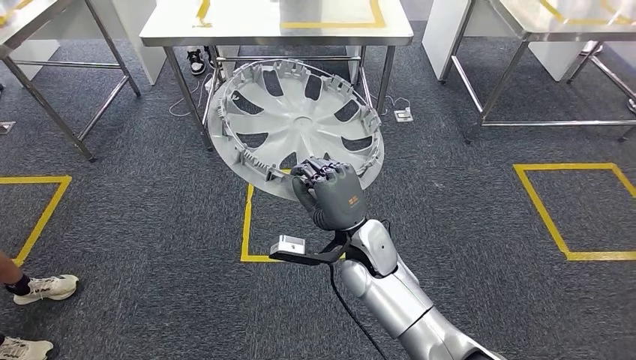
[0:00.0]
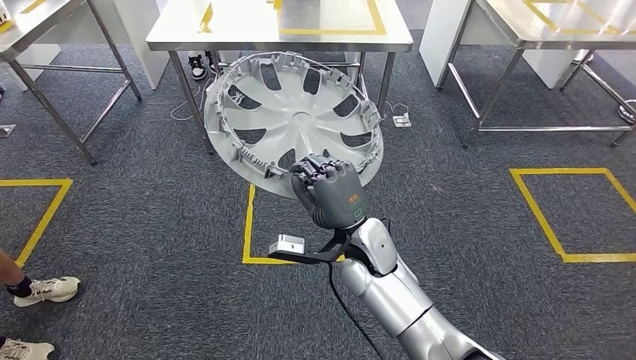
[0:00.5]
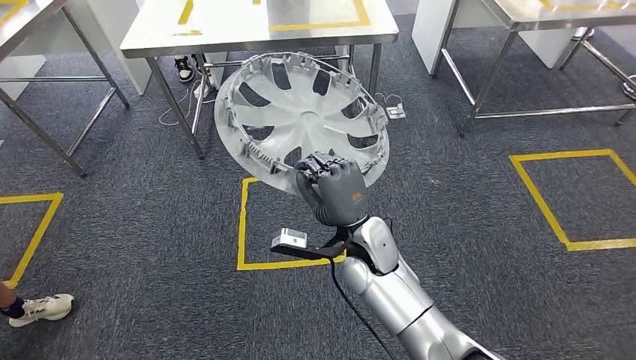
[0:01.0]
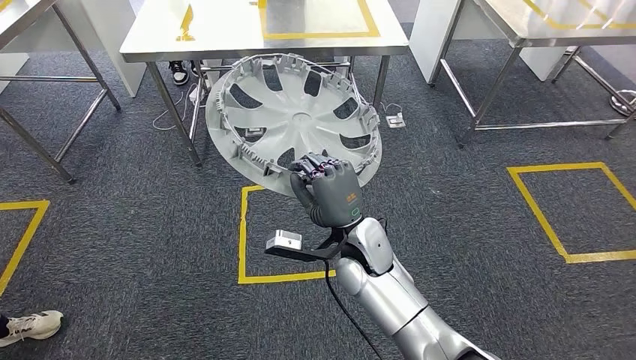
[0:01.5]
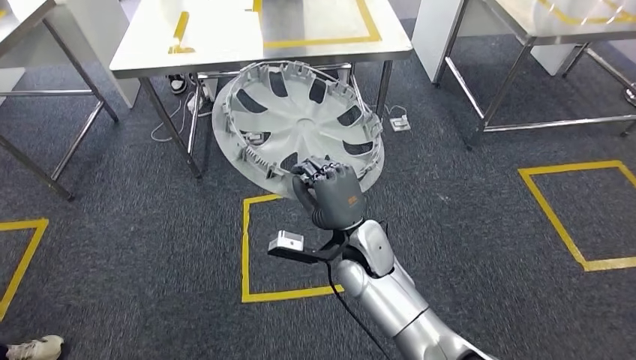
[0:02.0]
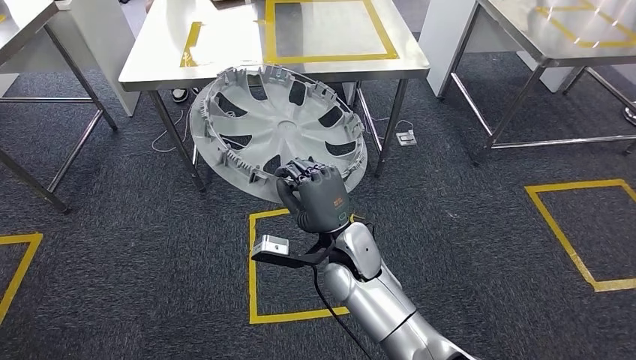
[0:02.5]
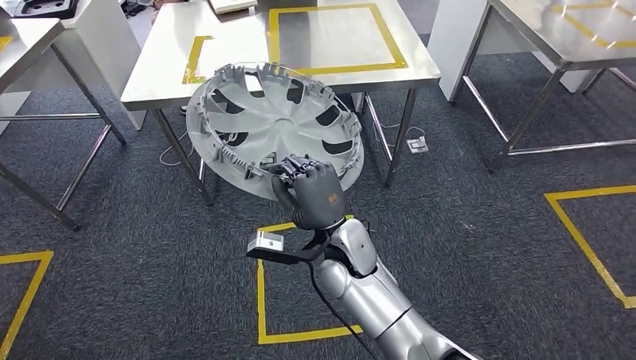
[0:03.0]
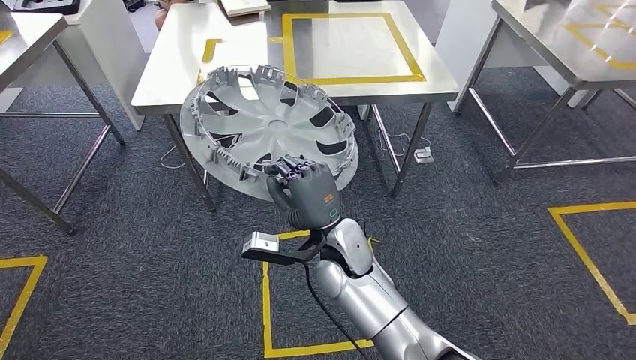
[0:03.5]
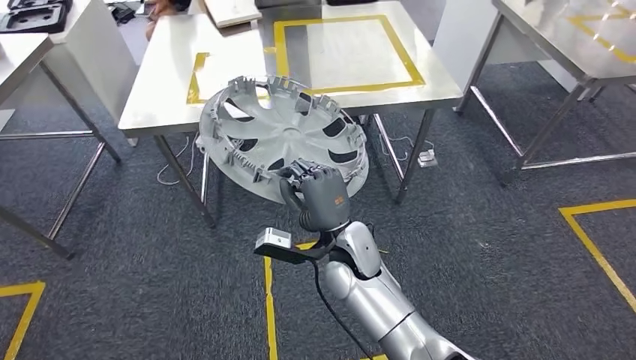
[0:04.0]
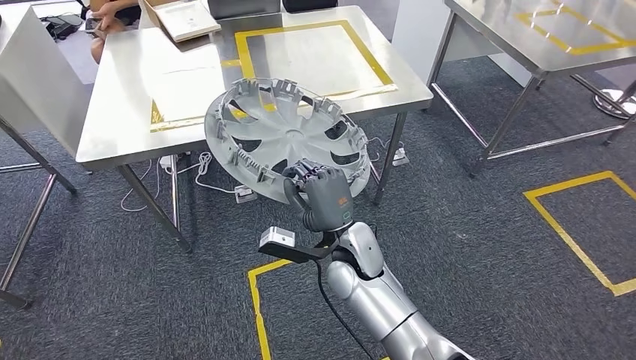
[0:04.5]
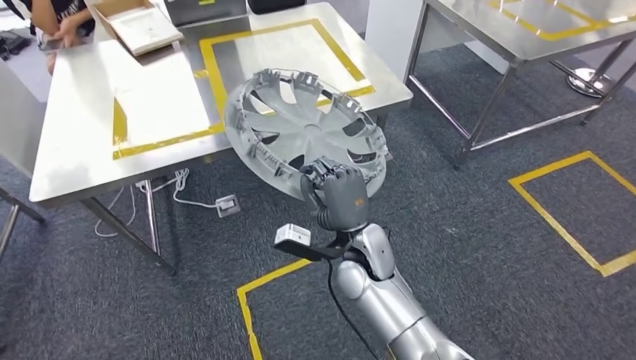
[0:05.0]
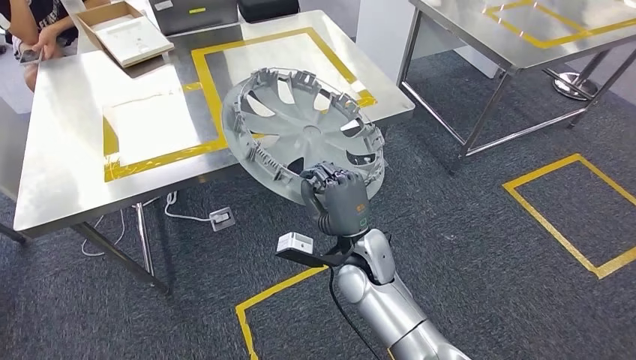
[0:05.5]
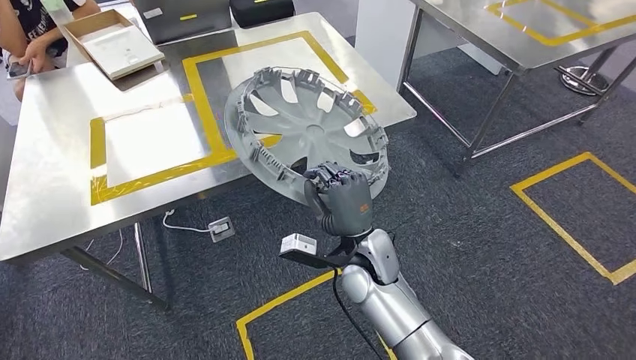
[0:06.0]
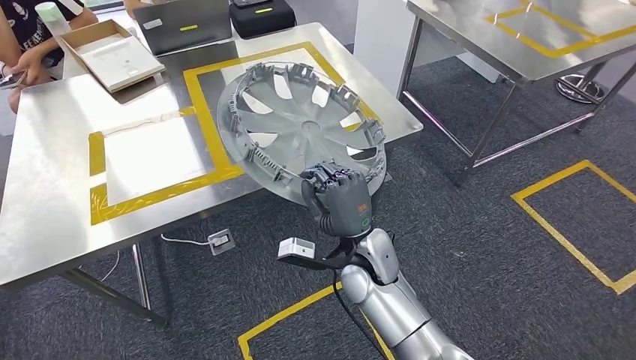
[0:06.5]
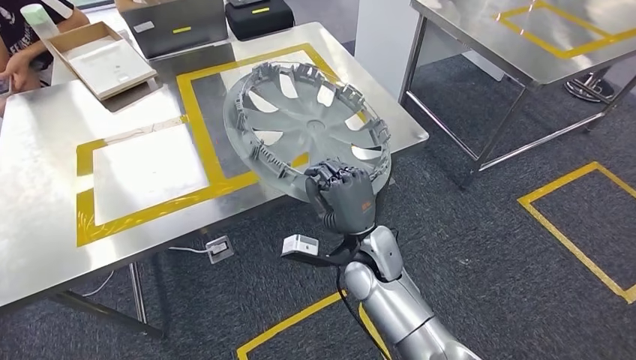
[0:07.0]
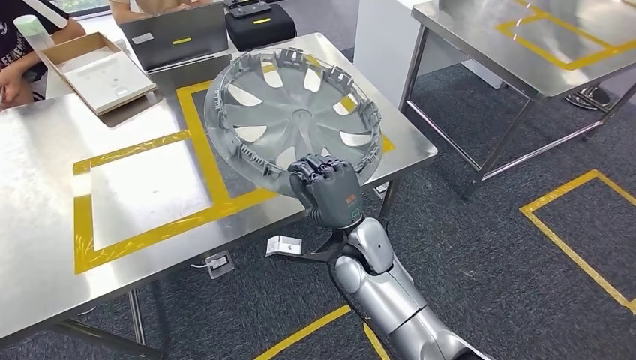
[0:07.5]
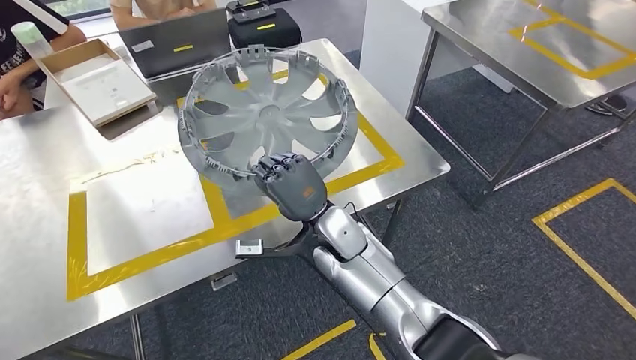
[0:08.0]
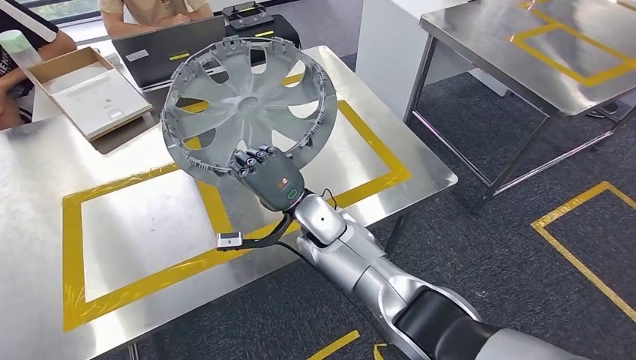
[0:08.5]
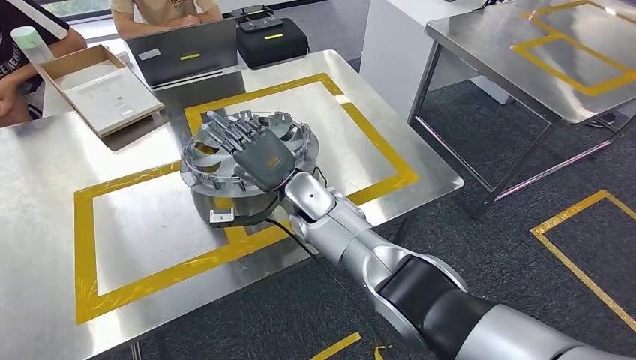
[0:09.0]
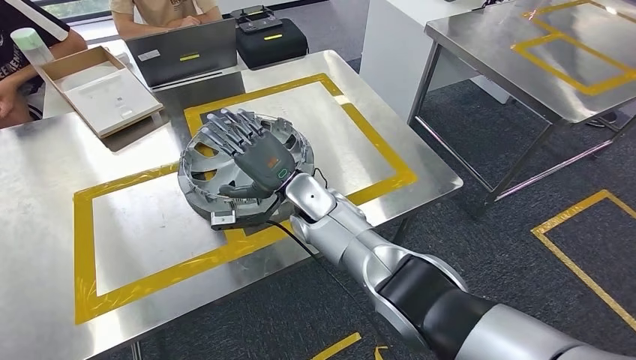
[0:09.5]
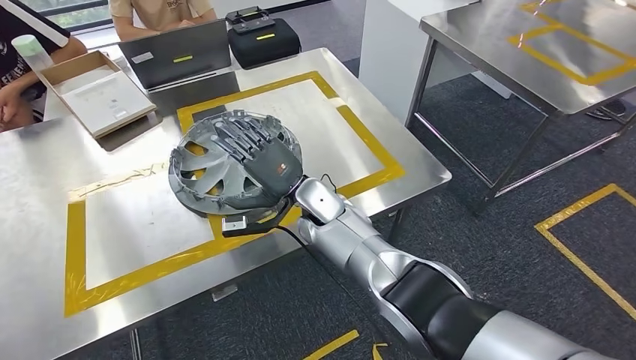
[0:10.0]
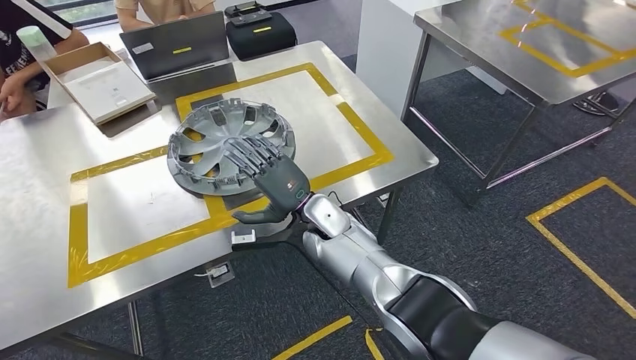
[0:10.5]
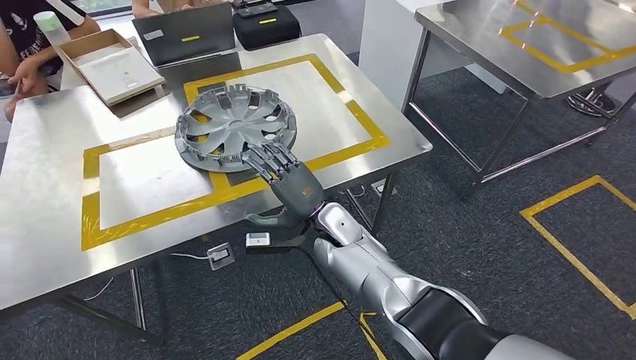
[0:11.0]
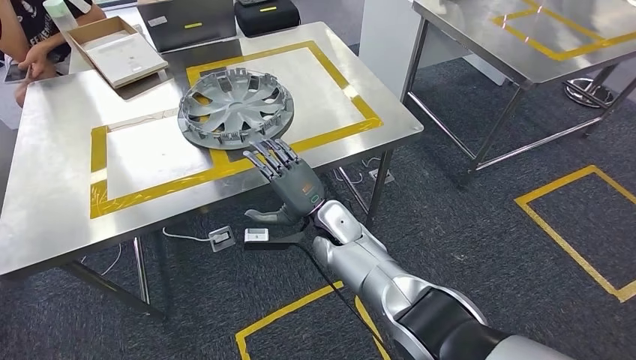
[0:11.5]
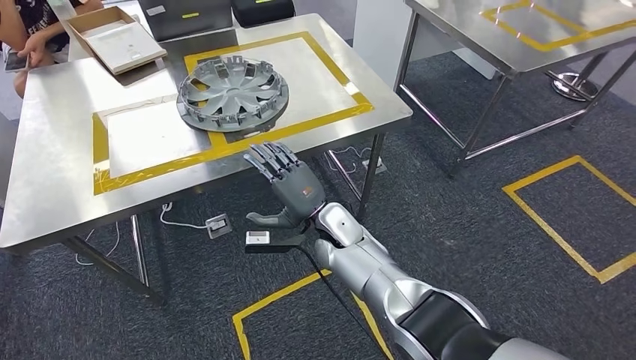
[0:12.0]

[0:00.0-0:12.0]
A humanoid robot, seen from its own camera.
Step, 0:00.0 to 0:08.0: Move the small parts to the workbench.
Step, 0:08.5 to 0:10.0: Insert the small parts into the corresponding holes on the workbench.

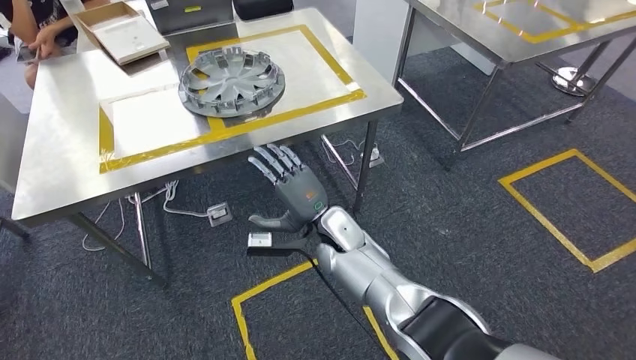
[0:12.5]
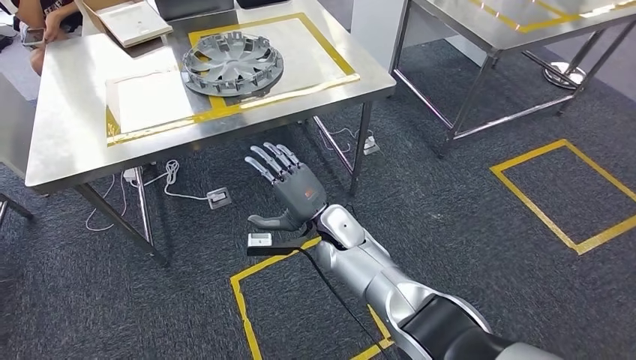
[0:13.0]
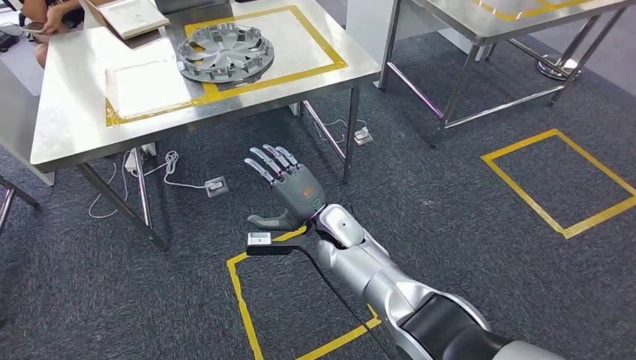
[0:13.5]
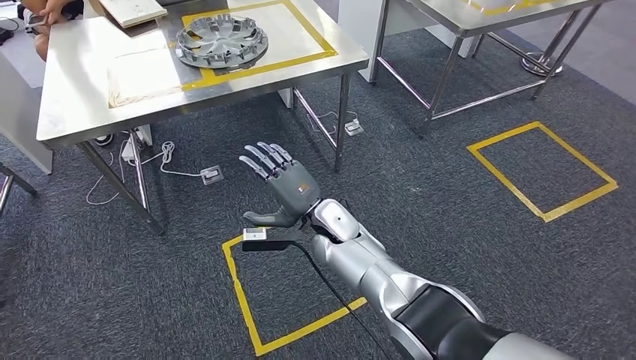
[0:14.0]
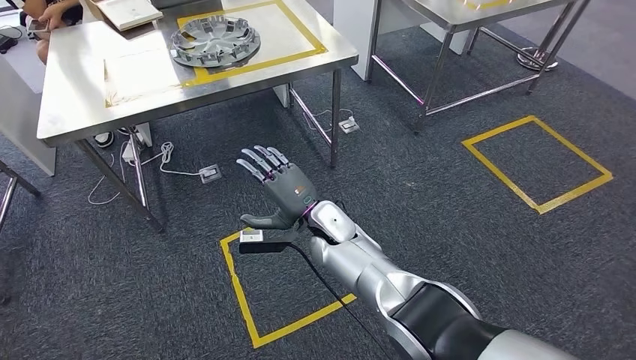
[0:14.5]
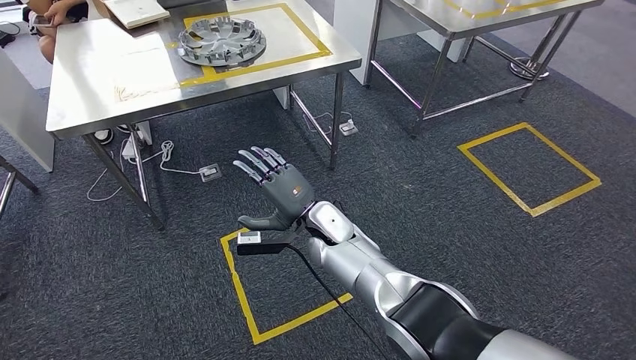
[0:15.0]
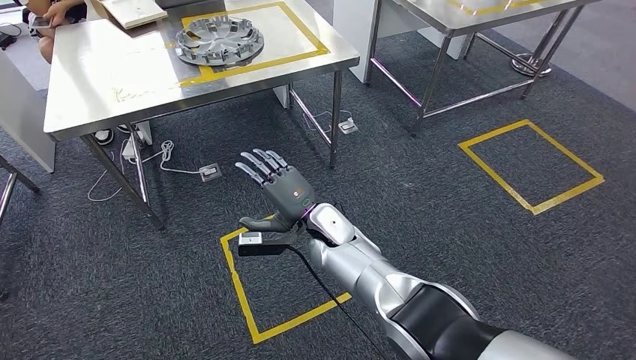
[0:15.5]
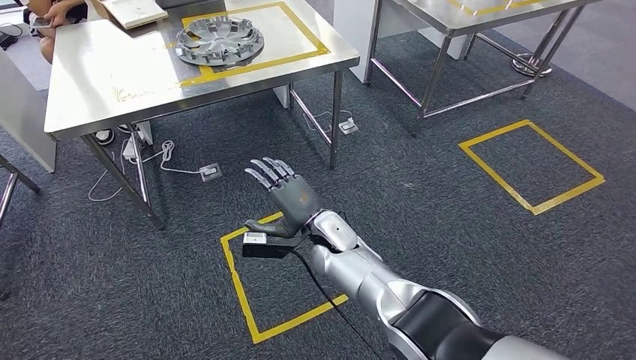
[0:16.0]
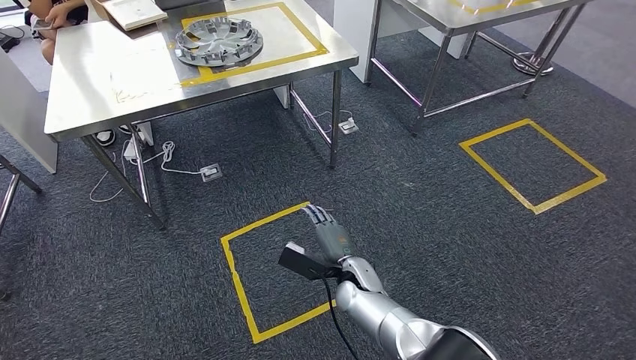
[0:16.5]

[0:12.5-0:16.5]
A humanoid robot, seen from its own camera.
Step, 0:12.5 to 0:16.5: Move to the initial position of the workbench.
0:14.5 to 0:16.5: The right hand is displaced backward and downward by roughly 15 cm.
